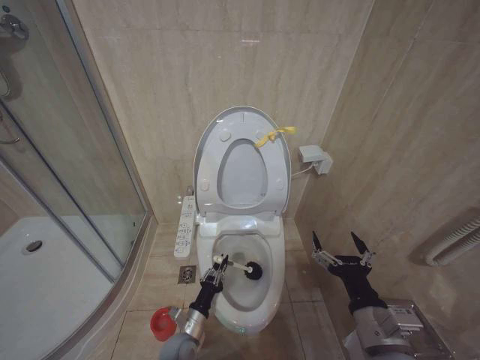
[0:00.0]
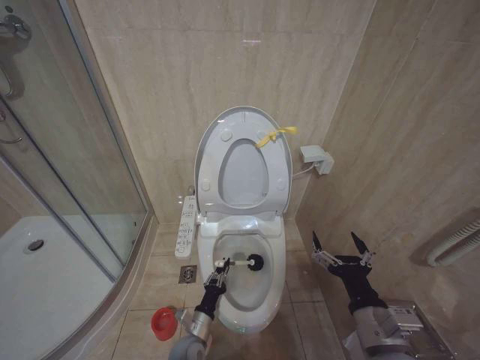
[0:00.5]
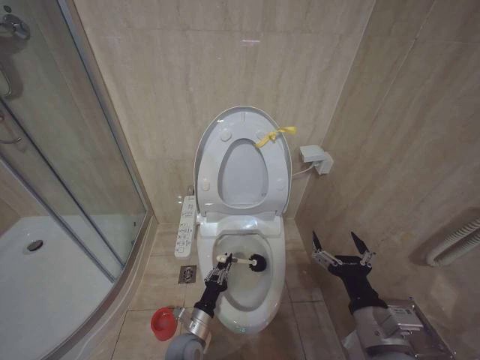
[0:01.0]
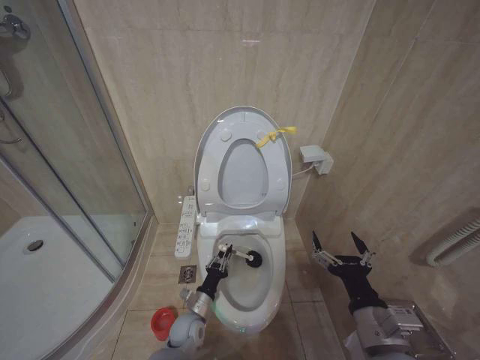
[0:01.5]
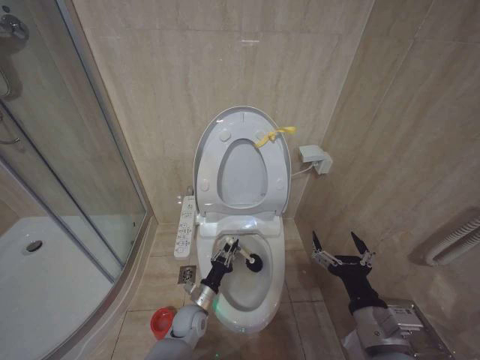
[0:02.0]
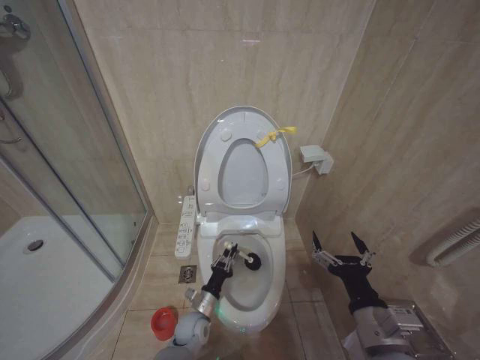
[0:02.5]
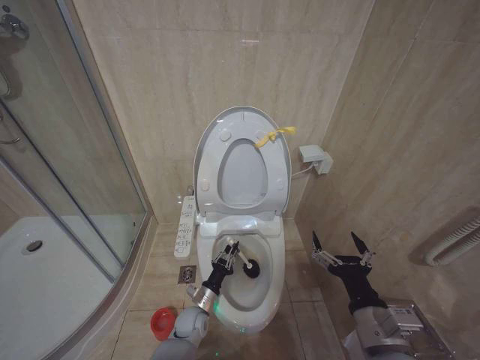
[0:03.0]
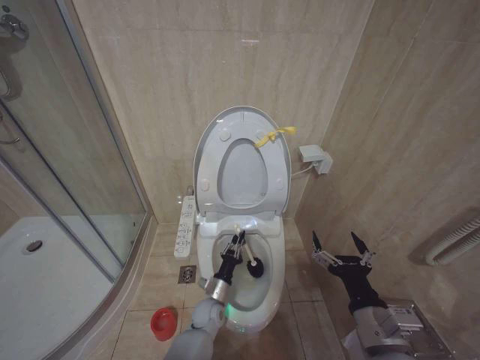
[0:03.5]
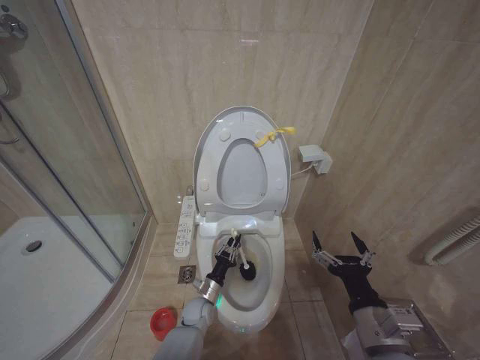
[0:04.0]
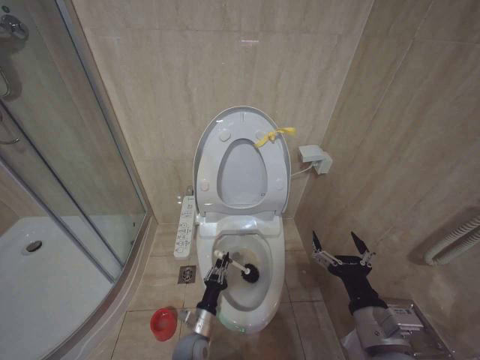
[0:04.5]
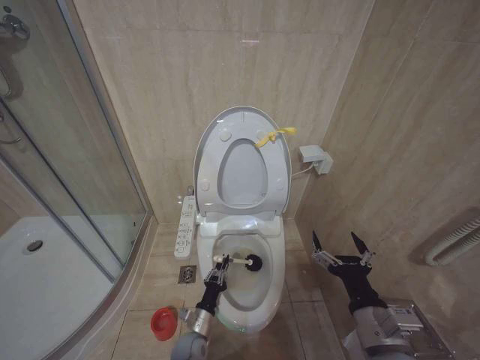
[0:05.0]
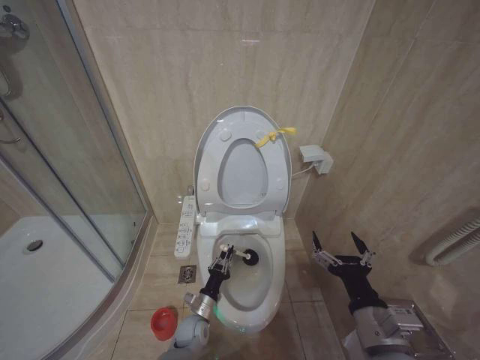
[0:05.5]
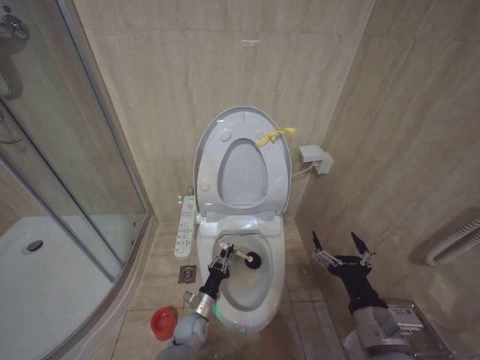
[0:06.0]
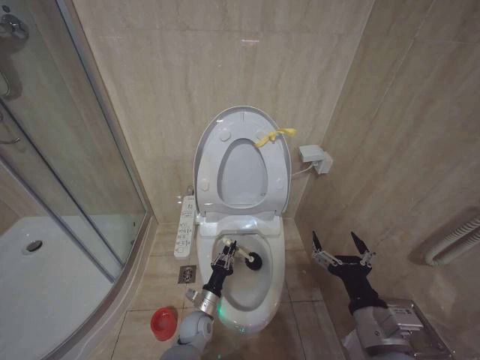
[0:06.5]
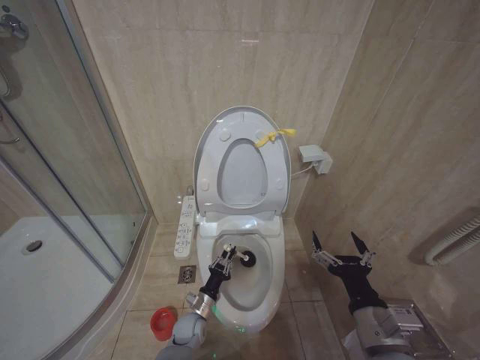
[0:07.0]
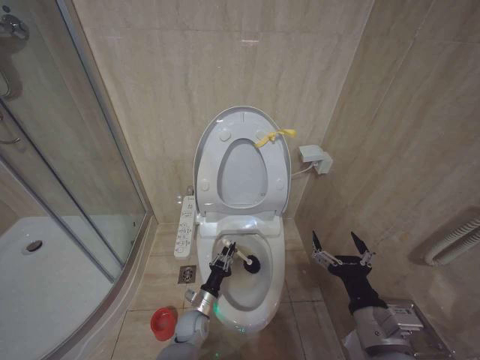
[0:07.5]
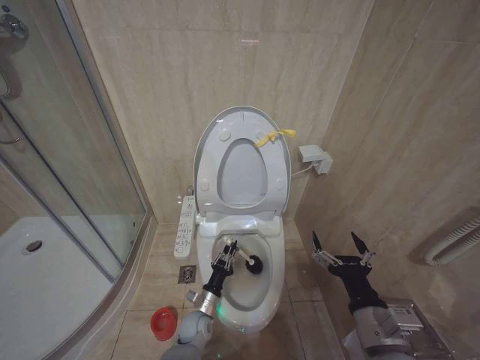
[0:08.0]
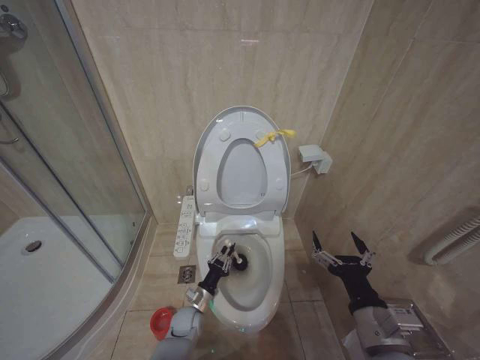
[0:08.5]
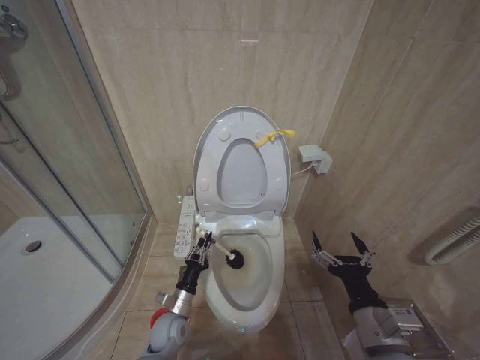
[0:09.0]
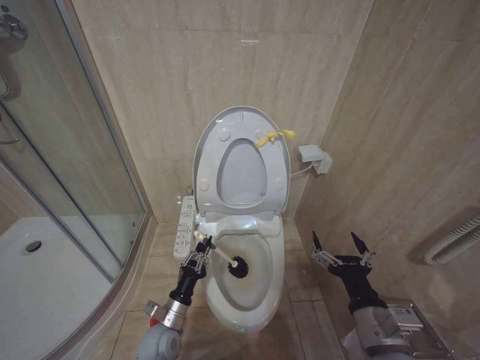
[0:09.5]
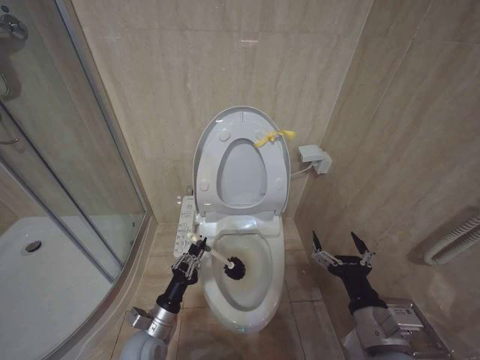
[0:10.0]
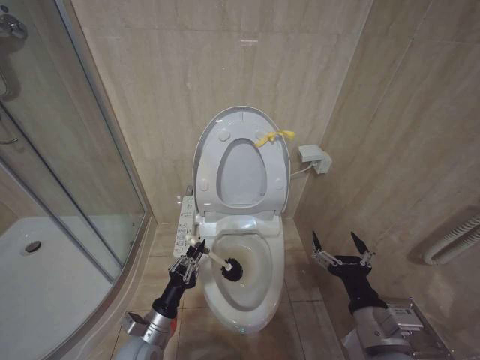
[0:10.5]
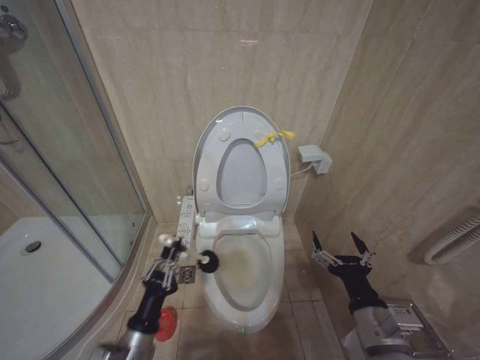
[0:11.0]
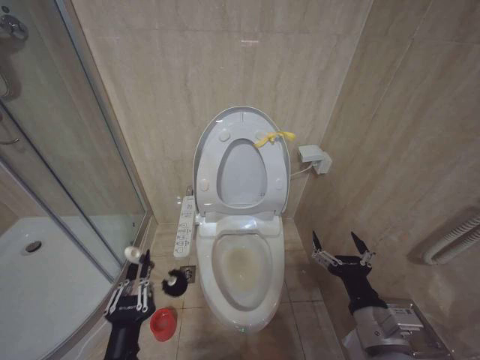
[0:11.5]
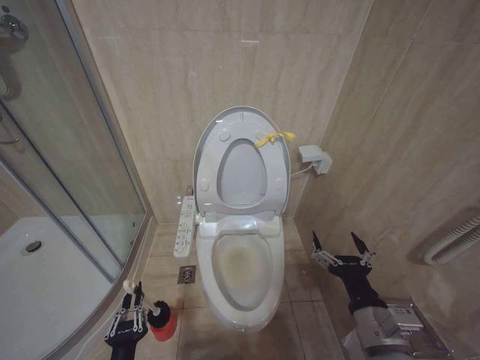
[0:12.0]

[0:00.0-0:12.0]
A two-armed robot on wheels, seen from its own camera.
Task of the whole recording: Open the toilet lid, clean the toilet bowl with a toilet brush, close the toilet lid, and flush.
0:00.0 to 0:02.0: The left gripper goes roughly 5 cm forward.
0:02.0 to 0:04.0: The left gripper changes place by roughly 5 cm.
0:08.0 to 0:10.0: The left gripper heads upward, to the left and backward, covering approximately 15 cm.
0:10.0 to 0:12.0: The left gripper goes roughly 15 cm backward.

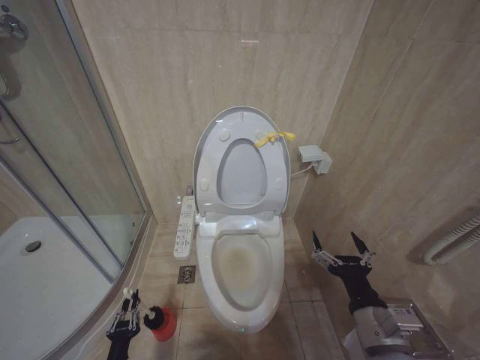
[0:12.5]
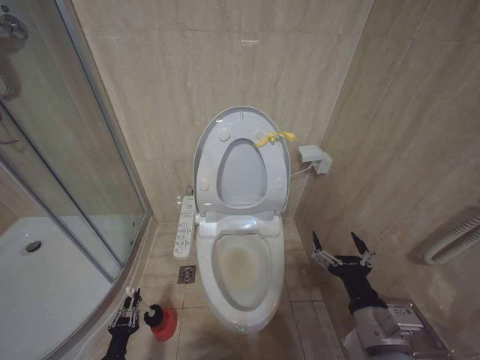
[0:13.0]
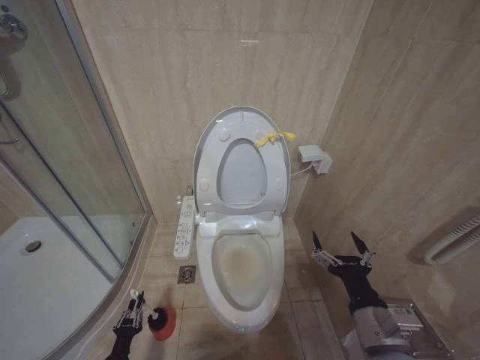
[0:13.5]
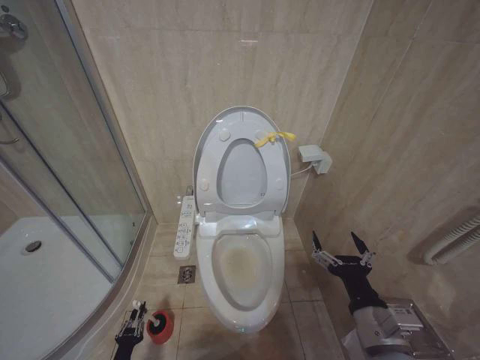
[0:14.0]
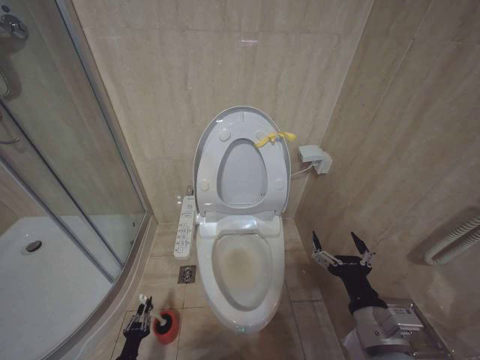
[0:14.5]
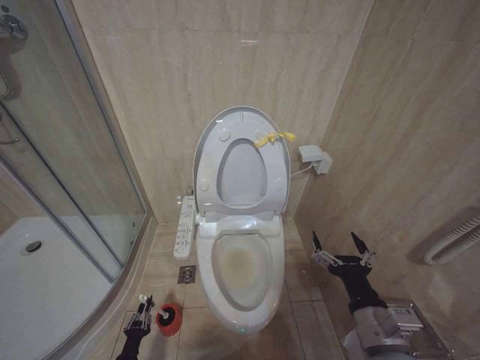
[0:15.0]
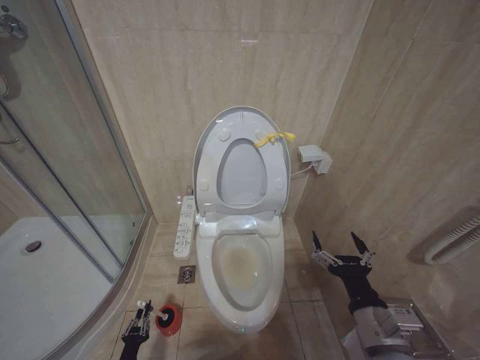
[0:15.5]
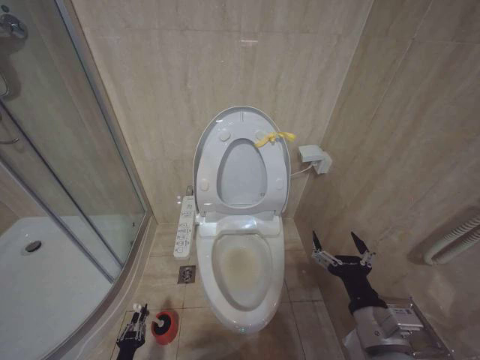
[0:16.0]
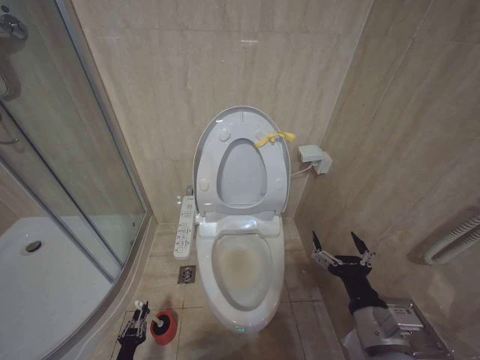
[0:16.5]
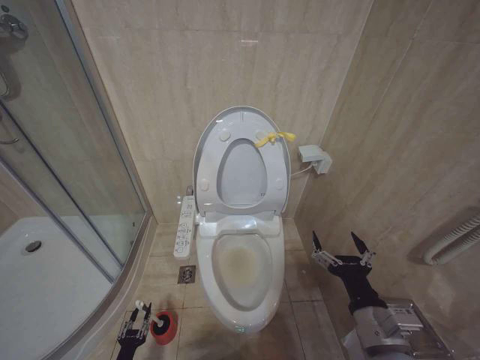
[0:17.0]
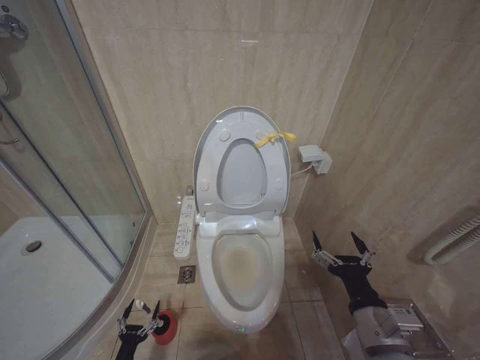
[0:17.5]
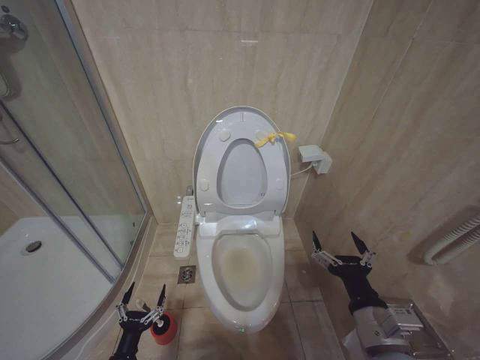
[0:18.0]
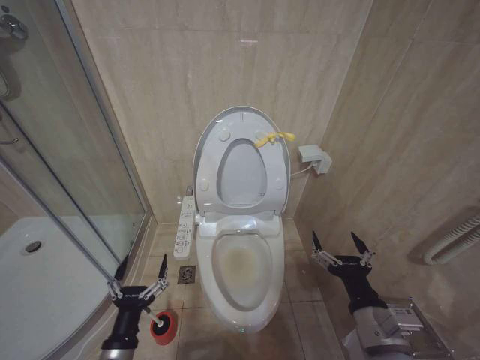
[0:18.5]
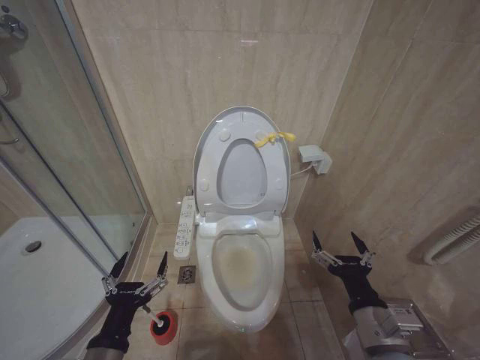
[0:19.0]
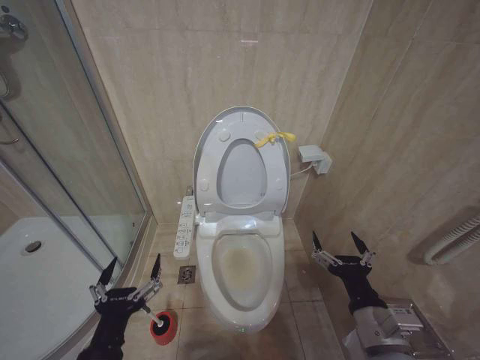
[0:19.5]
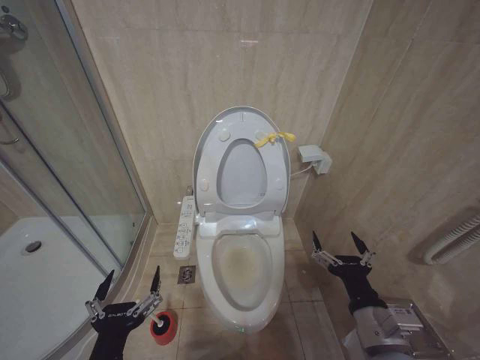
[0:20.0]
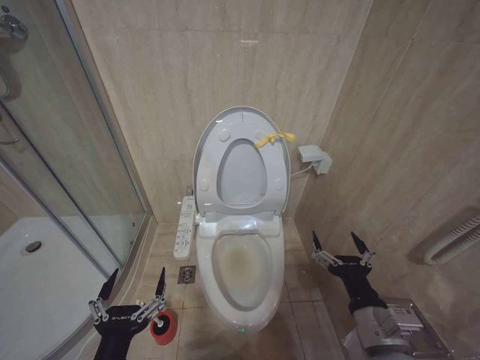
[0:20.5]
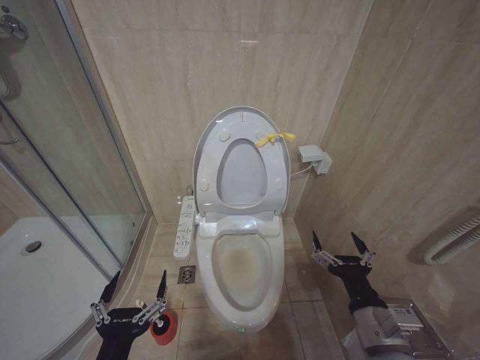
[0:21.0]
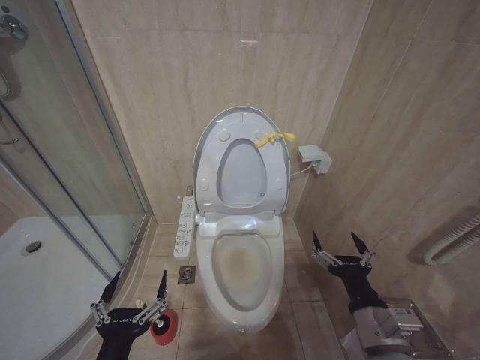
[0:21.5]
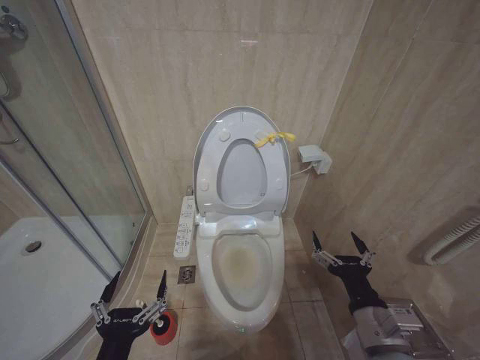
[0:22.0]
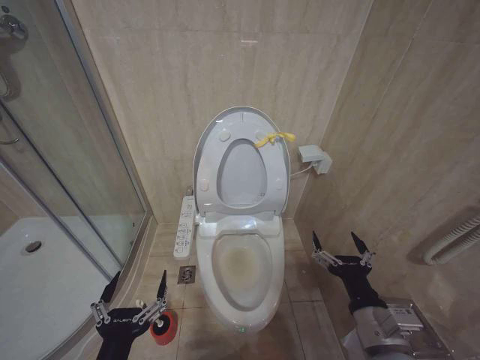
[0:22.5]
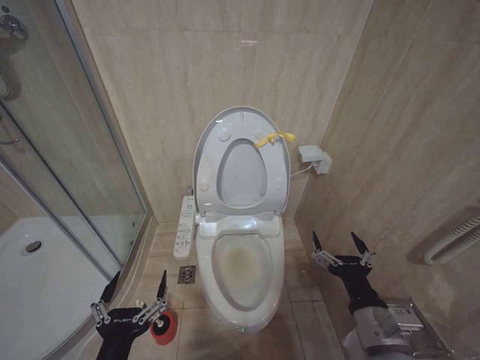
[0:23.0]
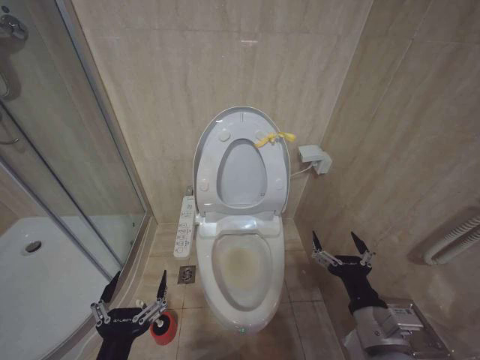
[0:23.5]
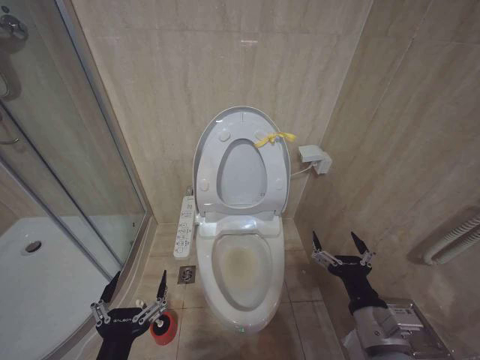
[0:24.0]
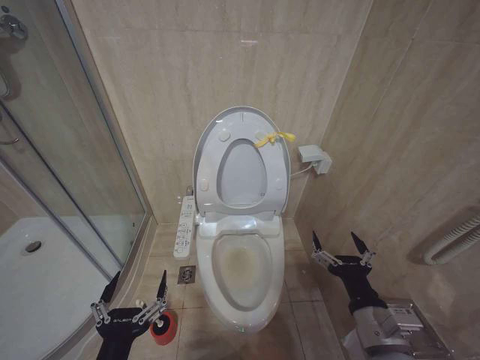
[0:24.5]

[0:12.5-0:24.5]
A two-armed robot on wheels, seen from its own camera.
Task of the whole recording: Open the toilet lid, clean the toilet bowl with a toilet brush, close the toilet lid, and flush.
0:12.5 to 0:14.5: The left gripper is displaced downward by about 10 cm.
0:16.5 to 0:18.5: The left gripper goes roughly 30 cm upward and to the right, and opens.
0:18.5 to 0:20.5: The left gripper heads upward and backward, covering roughly 15 cm.
0:20.5 to 0:24.5: Both grippers stay put.

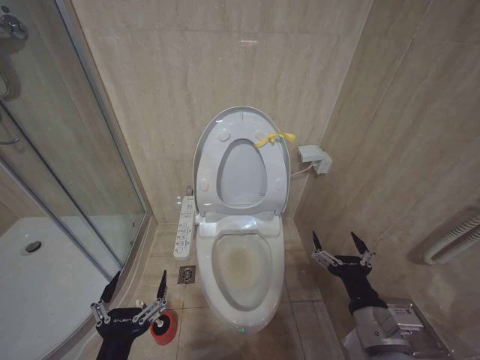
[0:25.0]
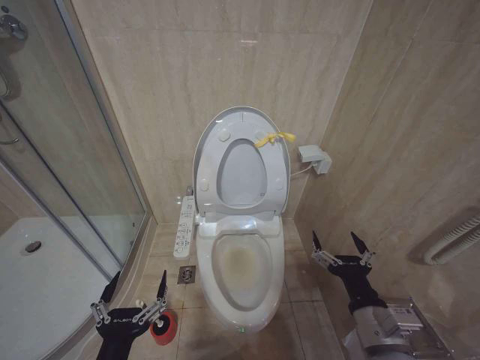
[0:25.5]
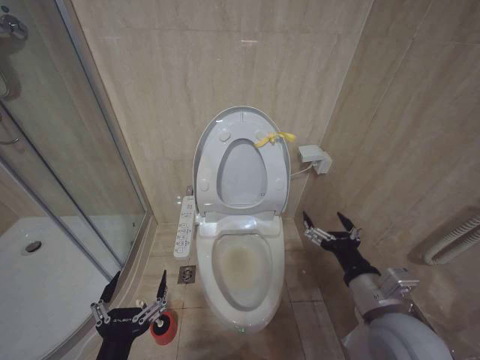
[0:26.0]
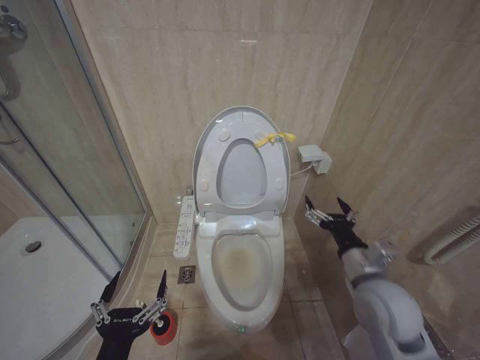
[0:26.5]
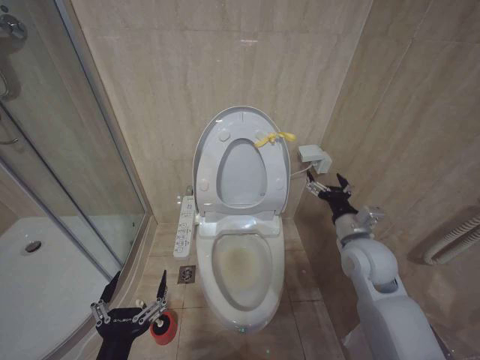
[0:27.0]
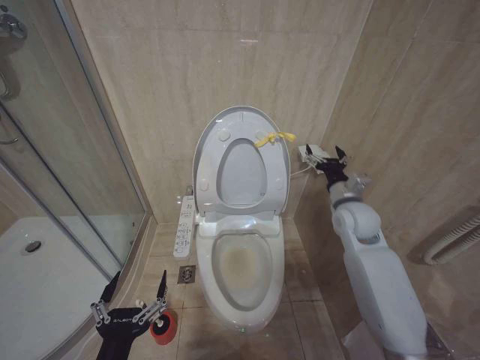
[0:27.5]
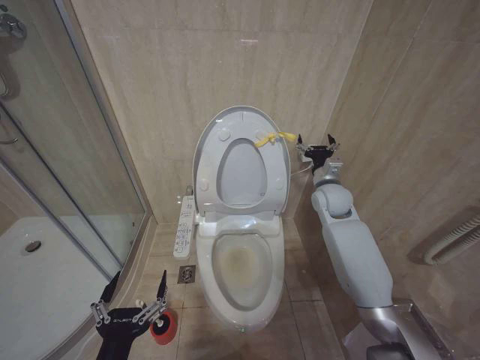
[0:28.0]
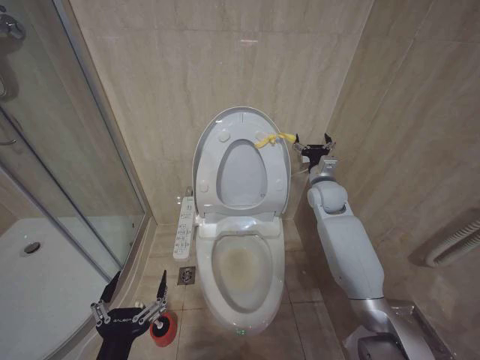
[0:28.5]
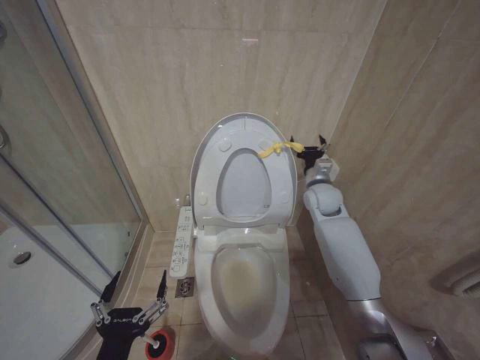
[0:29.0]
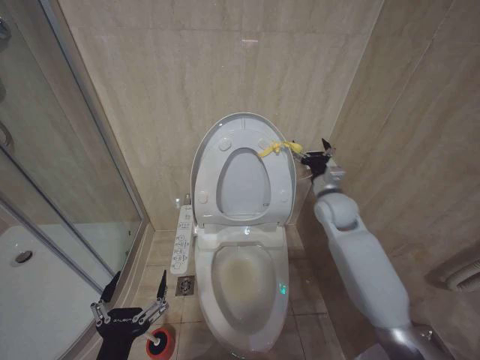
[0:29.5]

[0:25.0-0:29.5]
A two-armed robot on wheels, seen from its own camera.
Task of the whole recording: Open the toilet lid, clean the toilet bowl with a toilet brush, close the toilet lid, and flush.
0:25.0 to 0:27.0: The right gripper moves forward, approximately 15 cm.
0:27.0 to 0:29.5: The right gripper heads forward, covering roughly 15 cm.
